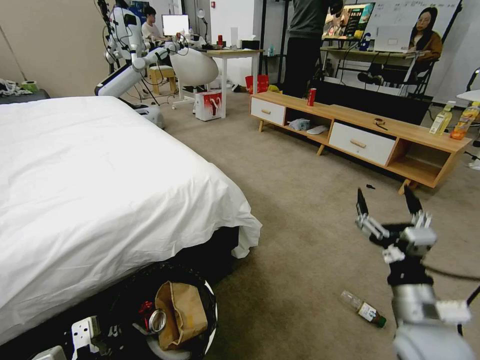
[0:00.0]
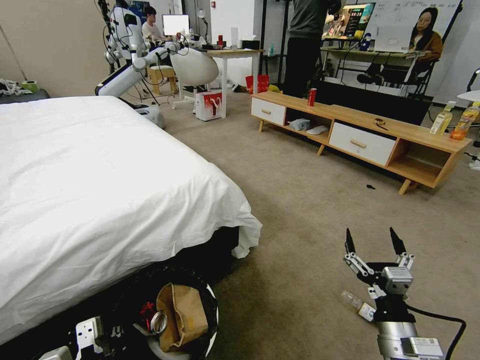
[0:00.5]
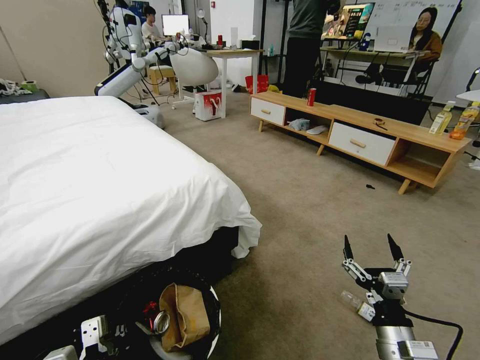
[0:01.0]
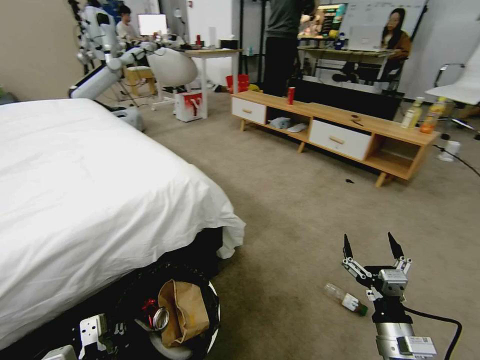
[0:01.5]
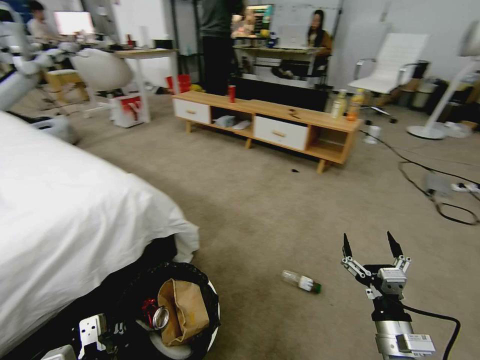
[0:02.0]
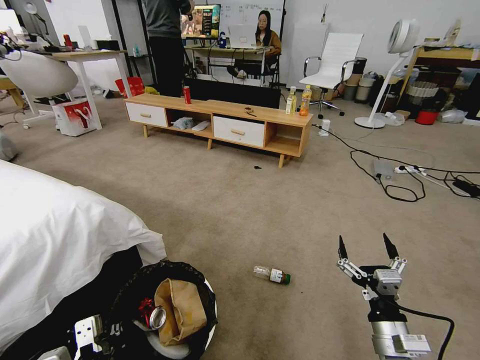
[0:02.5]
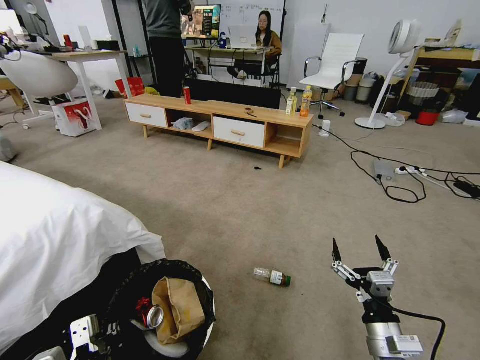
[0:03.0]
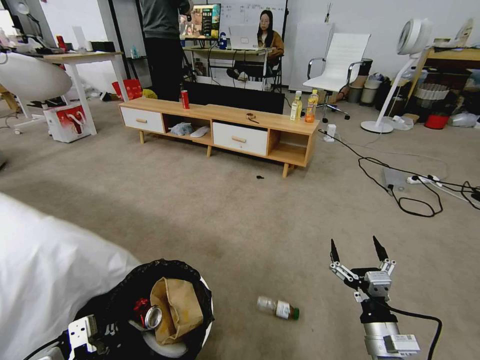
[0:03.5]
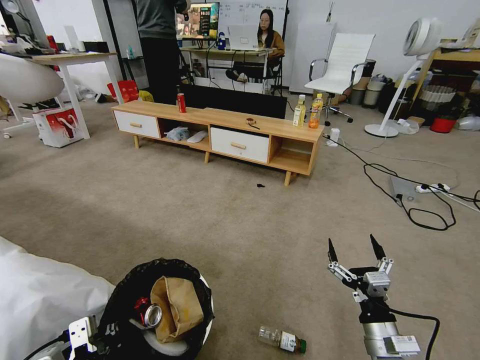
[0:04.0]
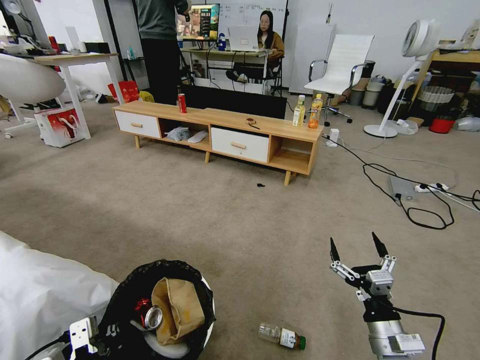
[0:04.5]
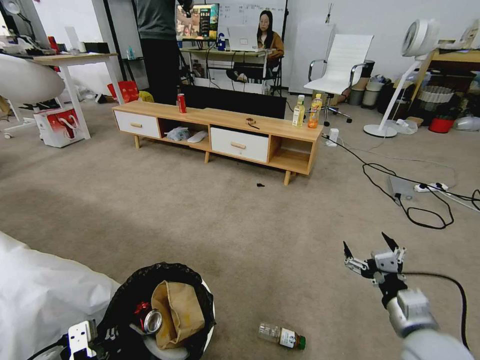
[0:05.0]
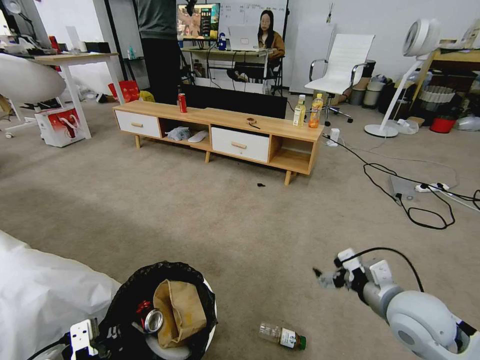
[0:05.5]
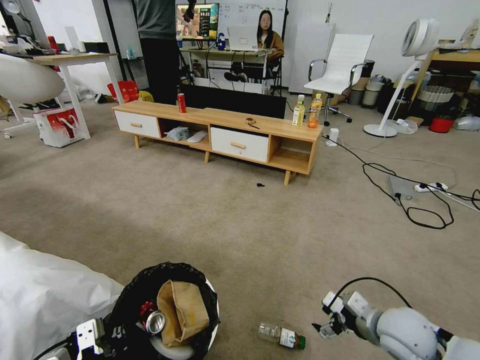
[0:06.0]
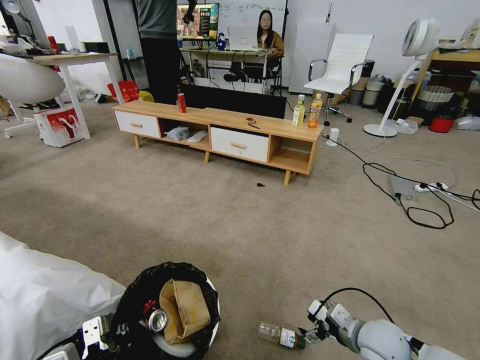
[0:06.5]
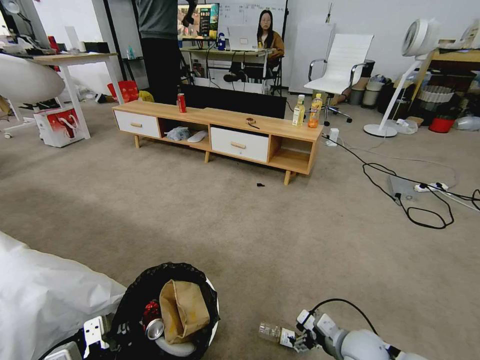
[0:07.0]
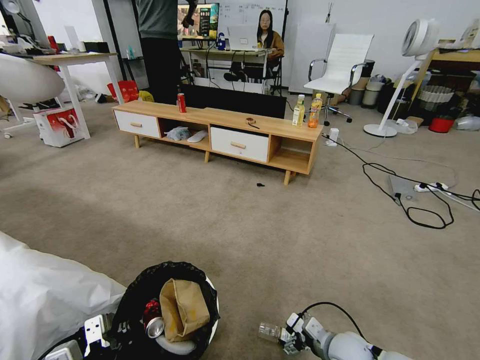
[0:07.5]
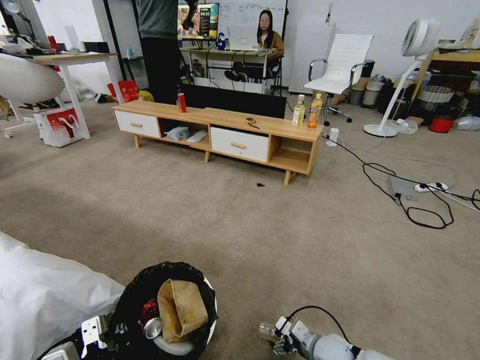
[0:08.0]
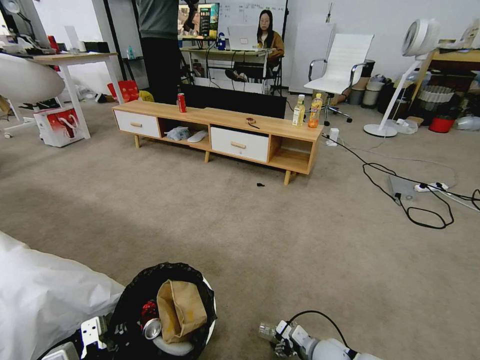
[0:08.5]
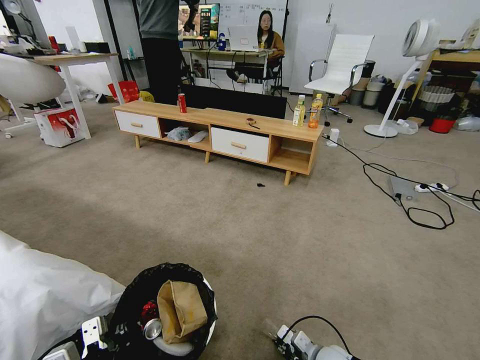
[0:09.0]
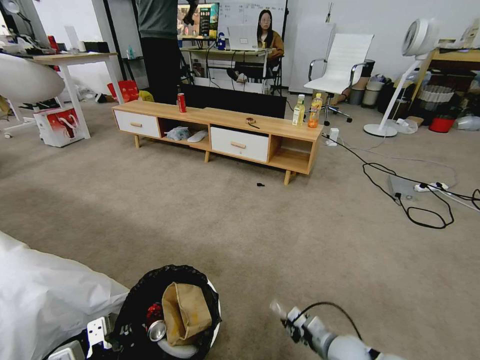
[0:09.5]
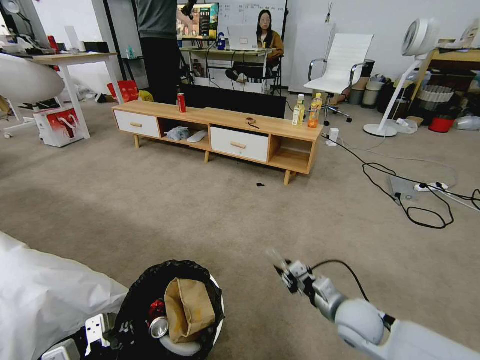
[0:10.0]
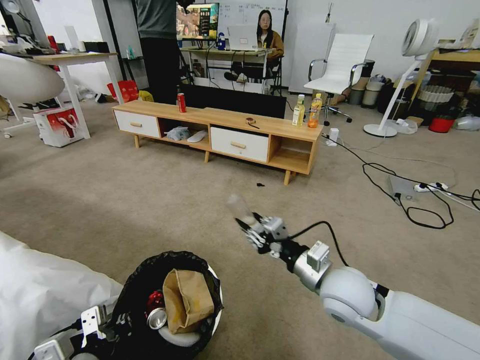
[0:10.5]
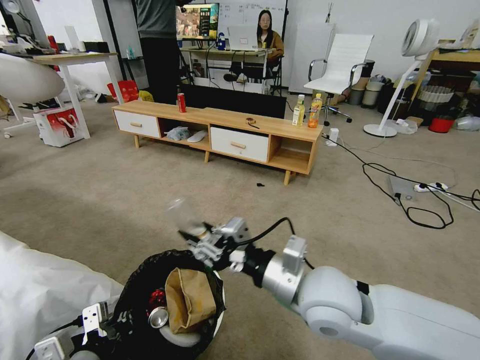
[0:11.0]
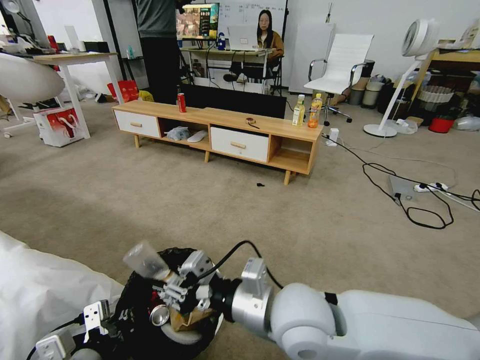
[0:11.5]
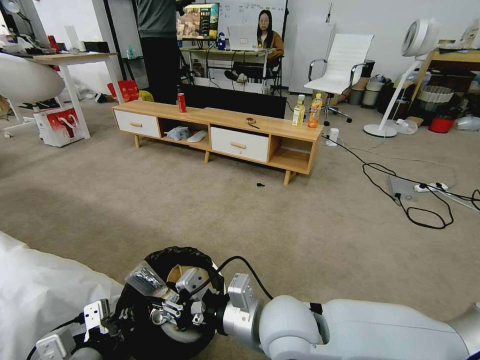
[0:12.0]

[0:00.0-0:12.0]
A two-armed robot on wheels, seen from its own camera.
Task of the whole recording: Pick up the trash bin and place the garbage on the floor into it.
0:00.0 to 0:02.0: The right gripper goes roughly 10 cm downward.
0:04.0 to 0:06.0: The right gripper moves forward, some 5 cm.
0:06.0 to 0:08.0: The right gripper moves downward and to the left, roughly 20 cm.
0:08.0 to 0:10.0: The right gripper is displaced upward by roughly 15 cm, and closes.
0:10.0 to 0:12.0: The right gripper moves to the left and upward, some 20 cm.

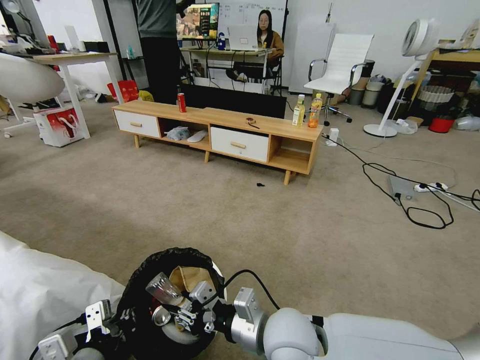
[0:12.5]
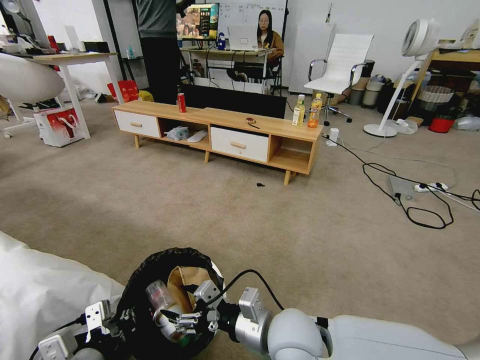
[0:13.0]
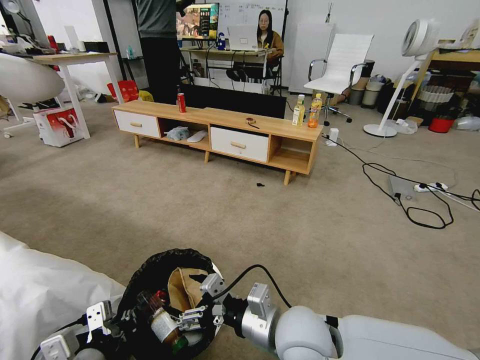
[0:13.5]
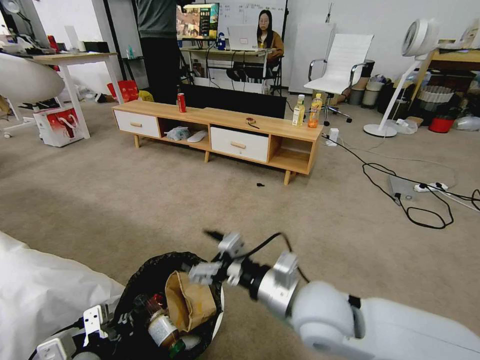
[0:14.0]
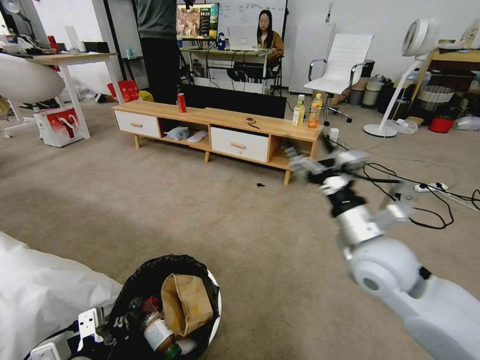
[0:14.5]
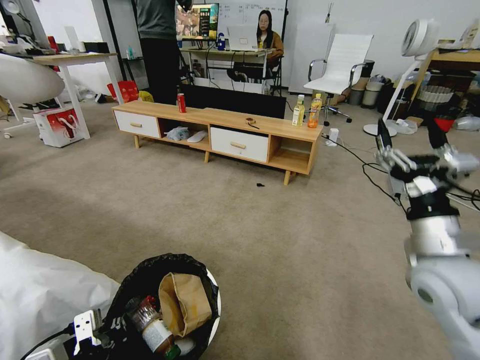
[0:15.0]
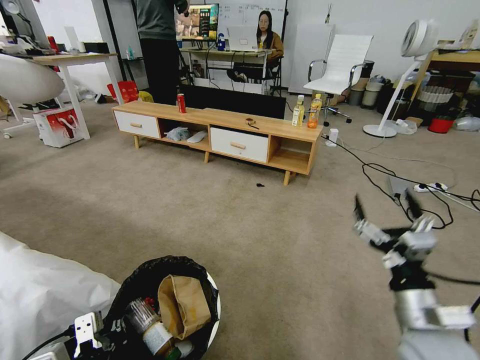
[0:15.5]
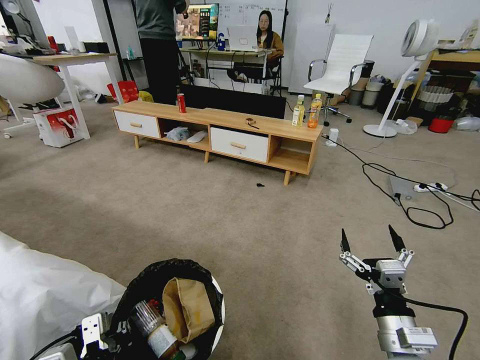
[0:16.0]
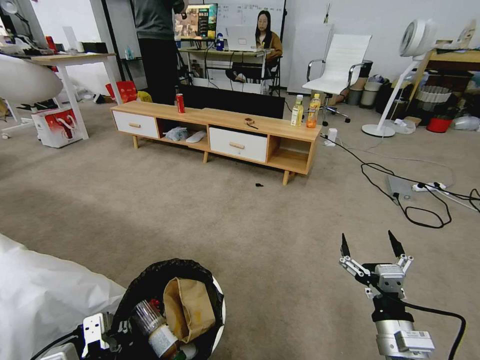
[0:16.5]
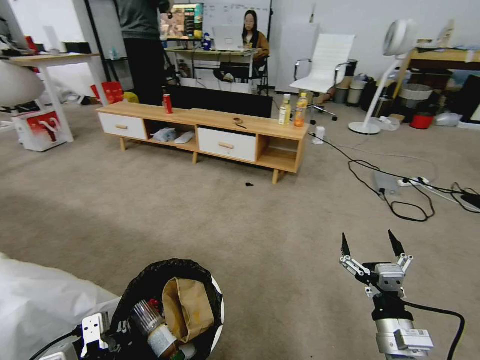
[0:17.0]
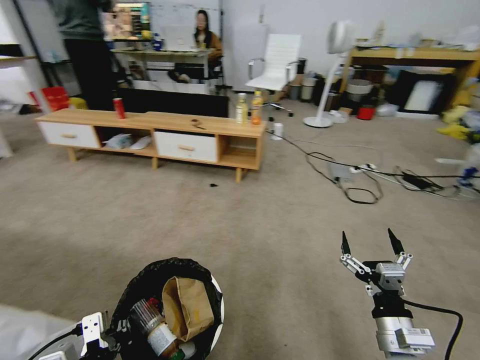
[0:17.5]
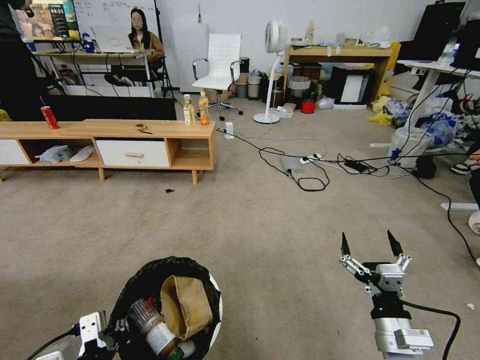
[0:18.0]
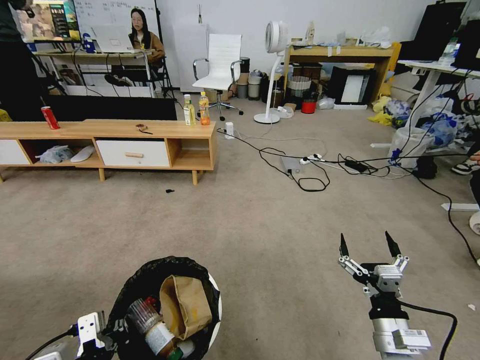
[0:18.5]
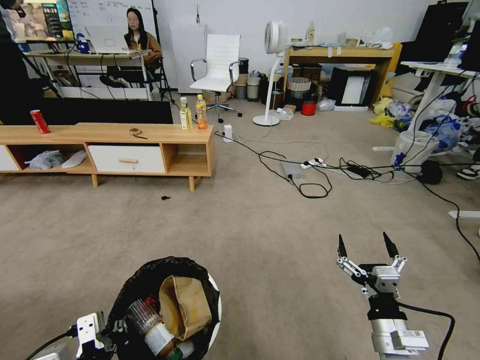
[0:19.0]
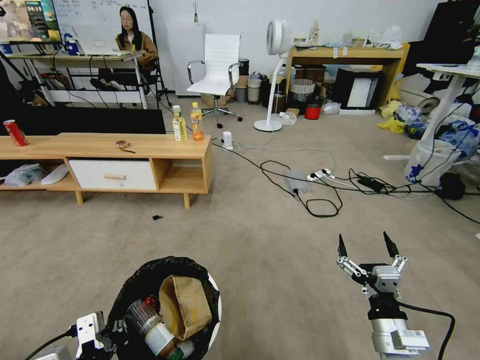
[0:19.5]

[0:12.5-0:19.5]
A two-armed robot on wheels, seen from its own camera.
Task of the whole recording: Pick up the trash bin and place the garbage on the floor into it.
0:12.5 to 0:14.5: The right gripper shifts roughly 20 cm to the right, upward and forward, and opens.
0:14.5 to 0:16.0: The right gripper is displaced downward and backward by about 20 cm.
